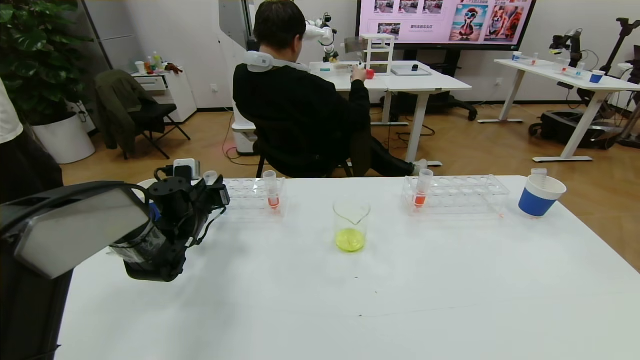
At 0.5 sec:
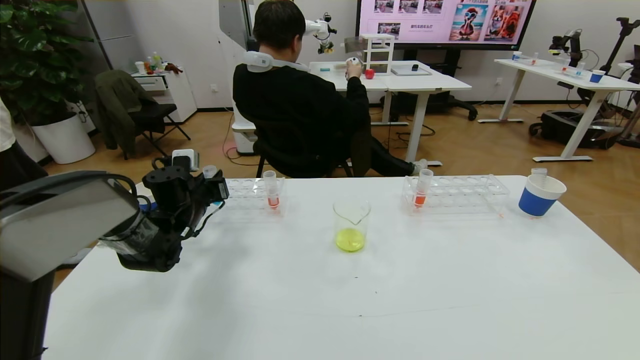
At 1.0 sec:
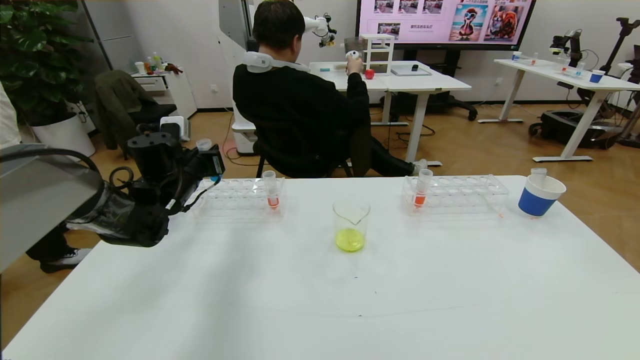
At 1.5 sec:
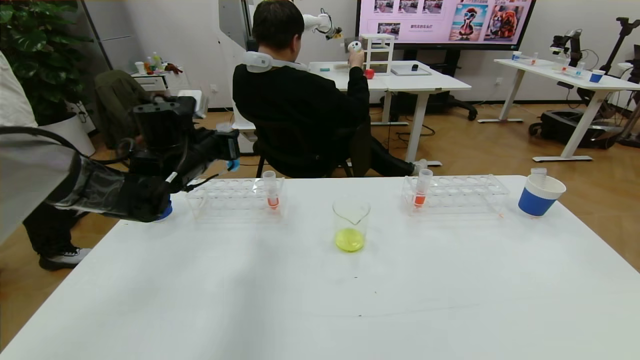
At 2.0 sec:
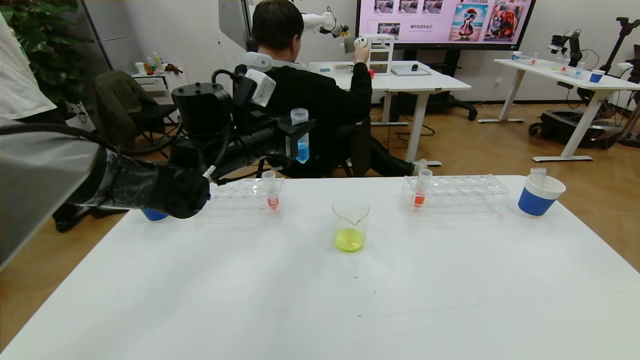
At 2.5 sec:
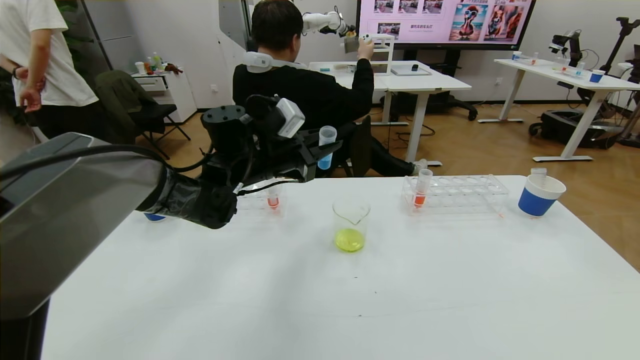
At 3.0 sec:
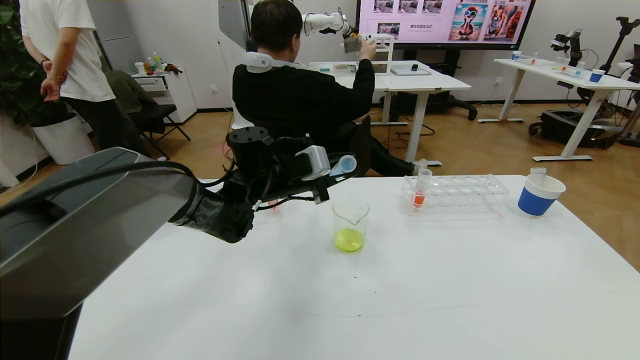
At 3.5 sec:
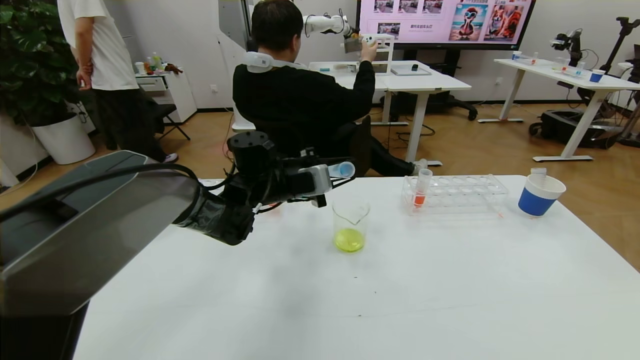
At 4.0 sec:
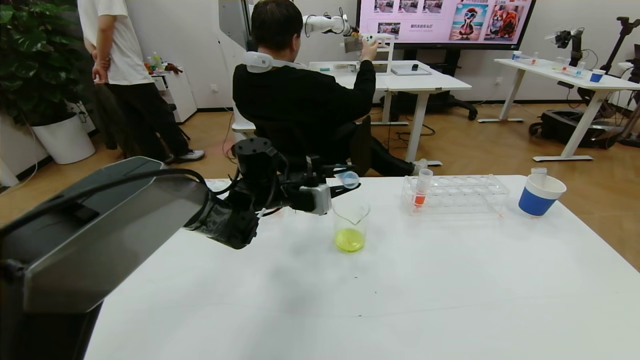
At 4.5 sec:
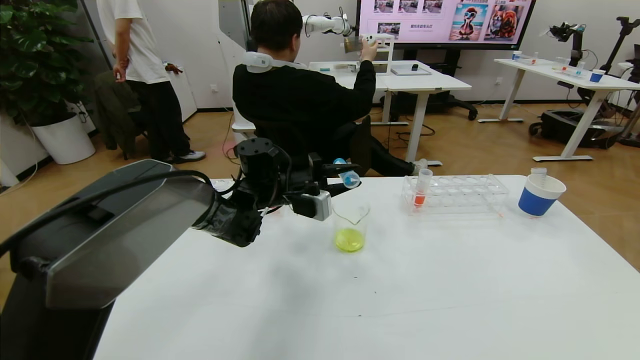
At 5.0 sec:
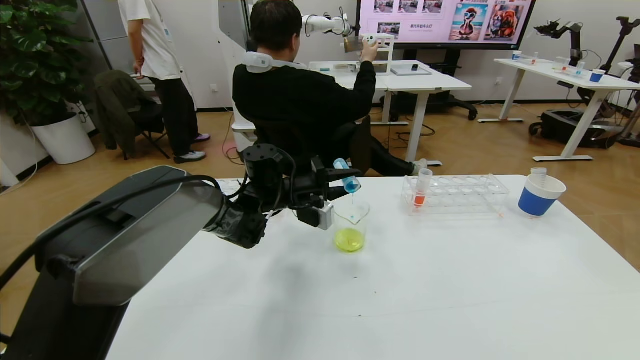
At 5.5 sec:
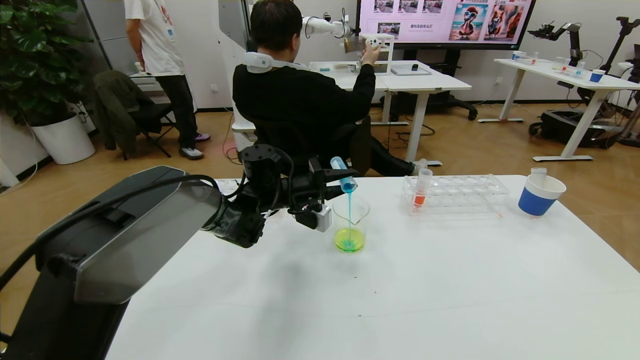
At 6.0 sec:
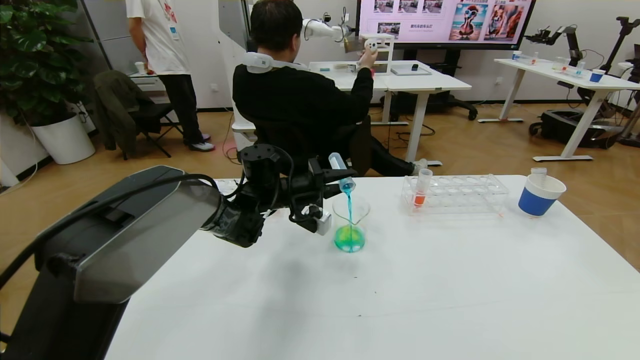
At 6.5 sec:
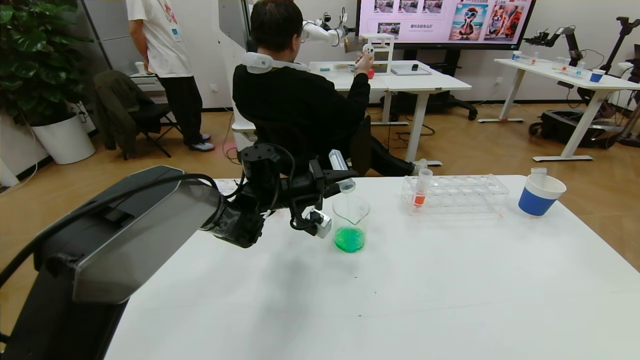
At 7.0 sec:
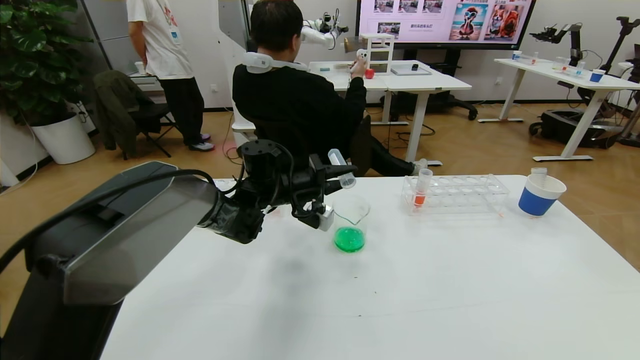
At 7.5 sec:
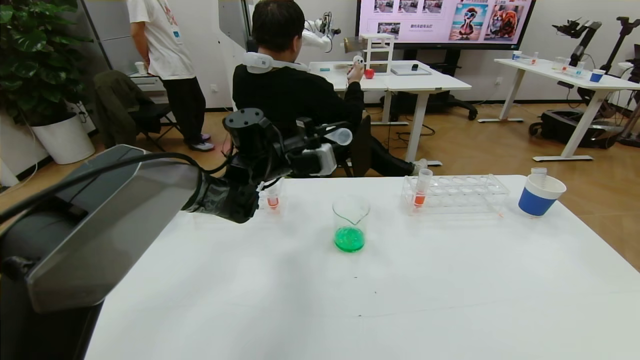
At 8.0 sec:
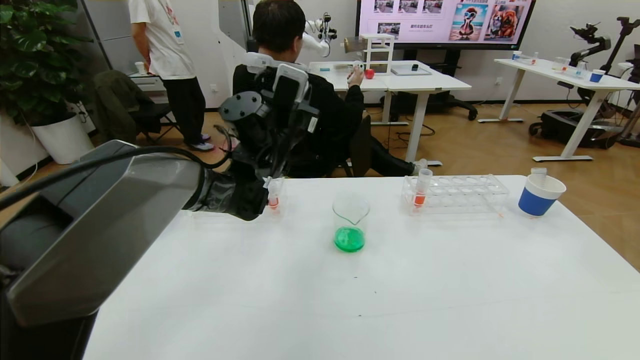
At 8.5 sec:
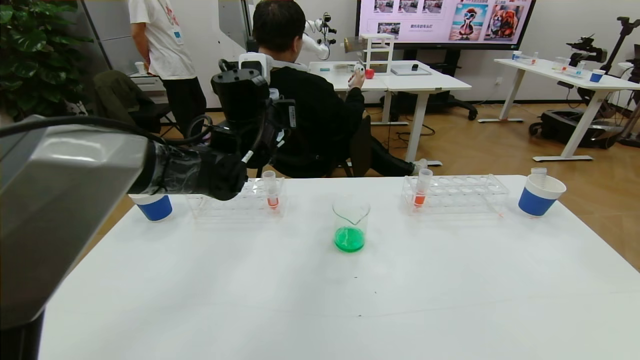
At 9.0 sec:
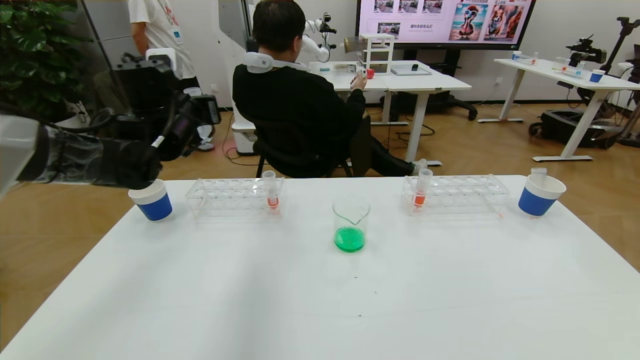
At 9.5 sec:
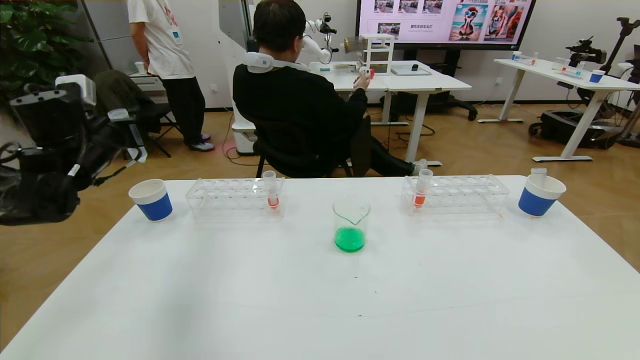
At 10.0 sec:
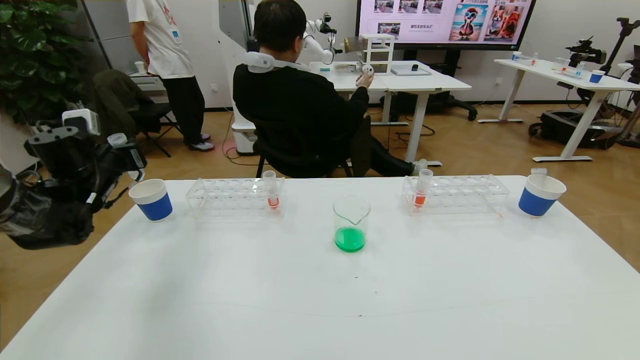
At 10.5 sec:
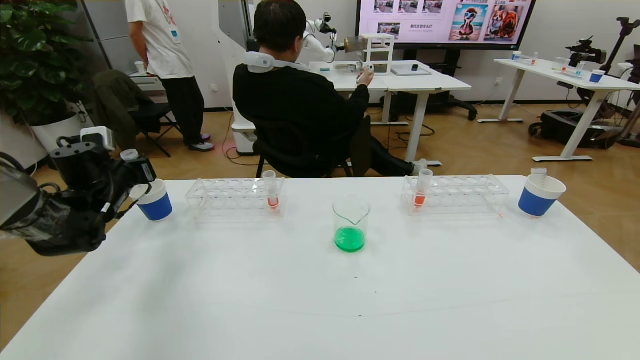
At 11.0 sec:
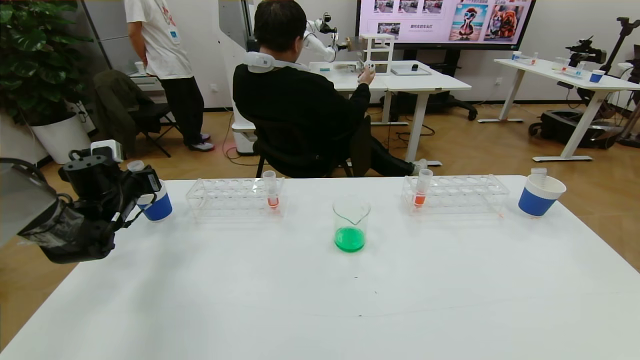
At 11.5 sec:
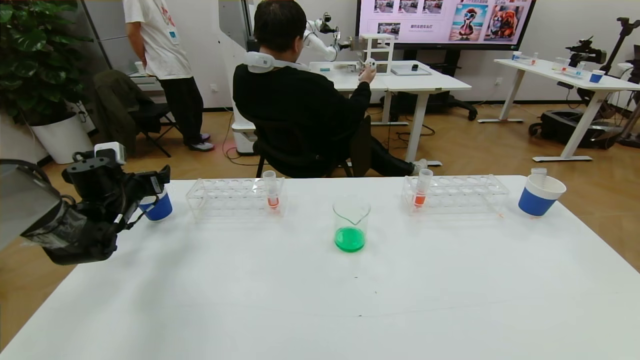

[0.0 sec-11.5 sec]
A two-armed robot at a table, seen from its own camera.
Task of the whole recording: pick up the test tube with yellow pigment and the test tube with blue pigment by grippers and pour them into the beaker.
0.0 sec to 2.0 sec: The left gripper goes approximately 20 cm upward and to the right.
2.0 sec to 4.0 sec: The left gripper goes some 10 cm downward and to the right.
6.0 sec to 7.5 sec: The left gripper moves upward, roughly 10 cm.
7.5 sec to 9.5 sec: The left gripper is displaced to the left by about 30 cm.
9.5 sec to 11.5 sec: The left gripper moves downward, about 10 cm, and opens its fingers.

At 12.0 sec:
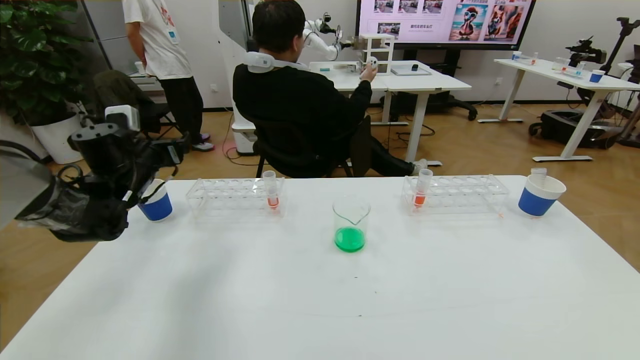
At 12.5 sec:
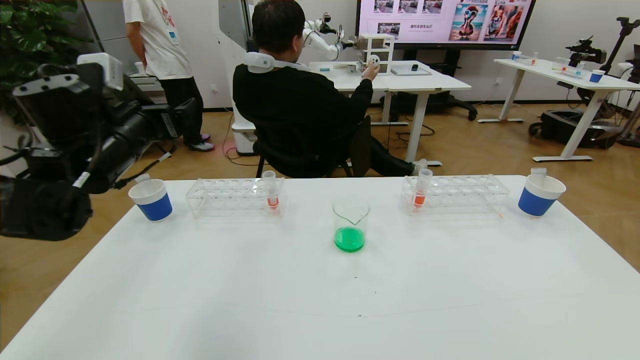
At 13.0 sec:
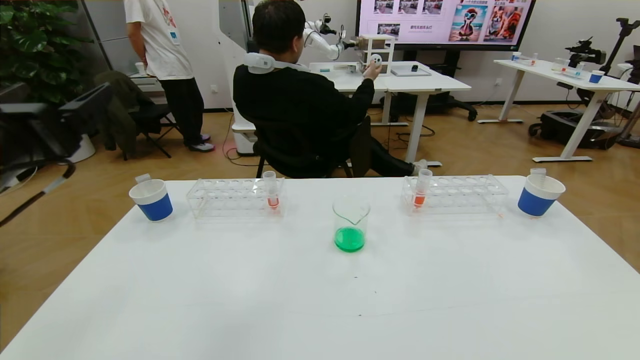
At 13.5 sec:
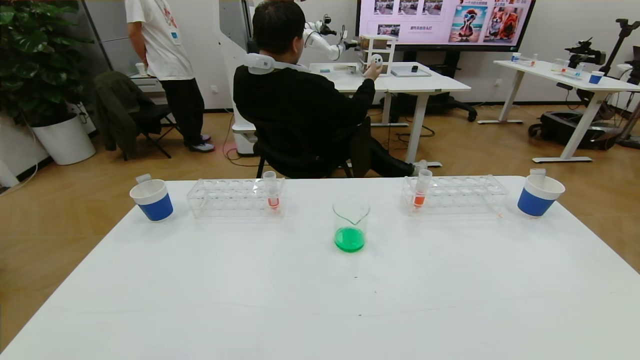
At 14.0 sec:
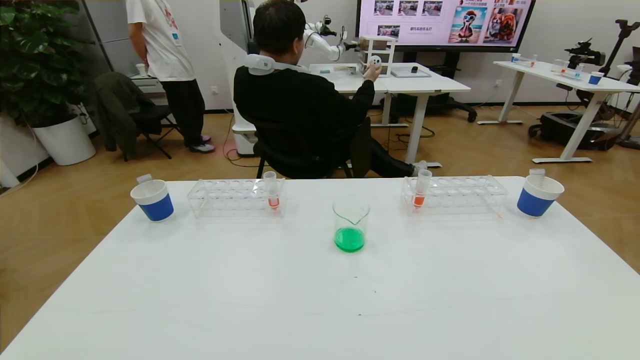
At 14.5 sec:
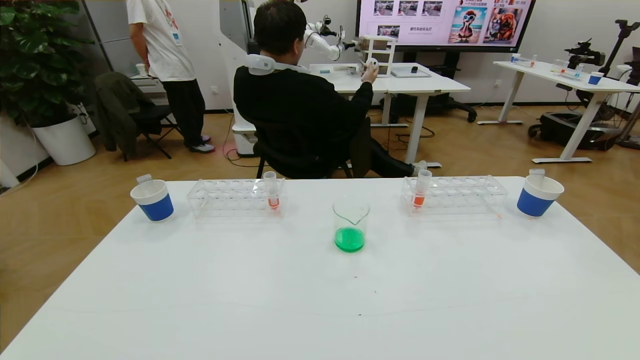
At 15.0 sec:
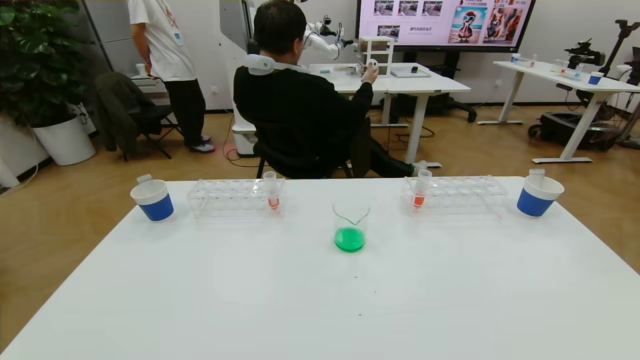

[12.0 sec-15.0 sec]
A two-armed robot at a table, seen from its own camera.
Task of the whole recording: pick up the test tube with yellow pigment and the test tube with blue pigment by grippers and pour them into the beaker.
Step, 12.0 sec to 15.0 sec: Pour the blue reagent into the graduated cylinder and place the test tube into the paper cup.
12.0 sec to 13.5 sec: The left gripper goes roughly 35 cm backward.
13.5 sec to 15.0 sec: The left gripper travels downward by about 20 cm.
